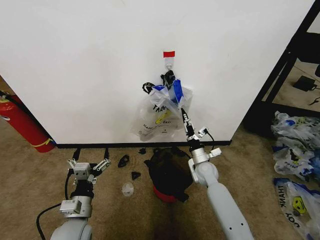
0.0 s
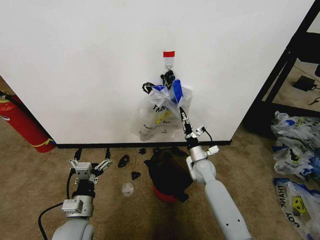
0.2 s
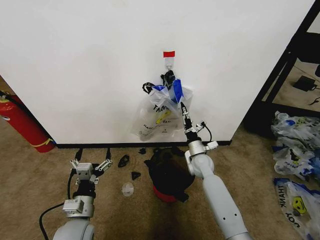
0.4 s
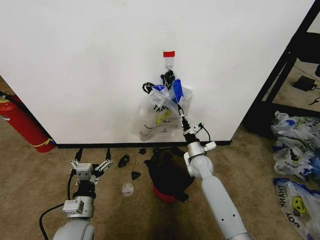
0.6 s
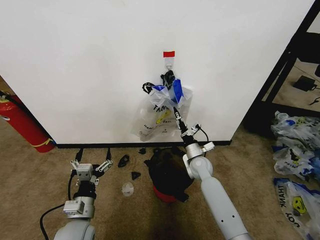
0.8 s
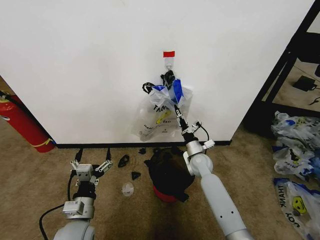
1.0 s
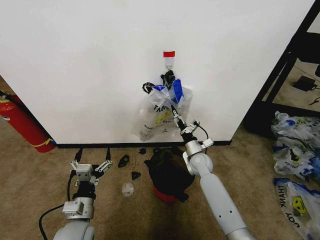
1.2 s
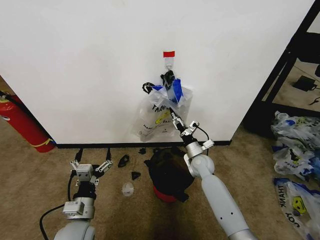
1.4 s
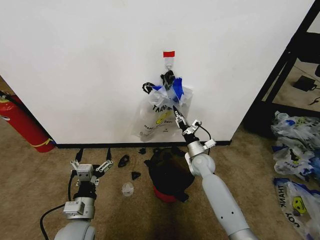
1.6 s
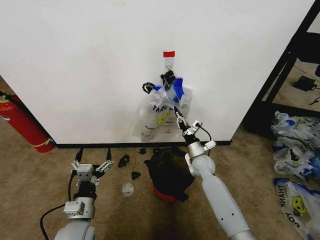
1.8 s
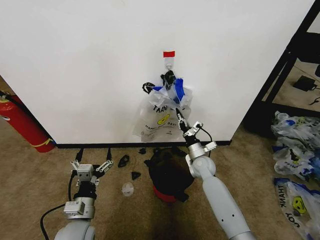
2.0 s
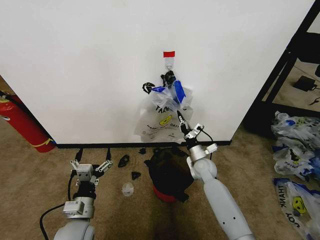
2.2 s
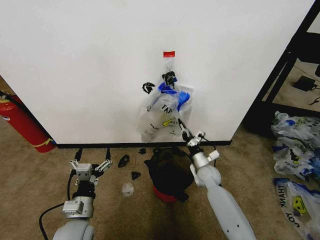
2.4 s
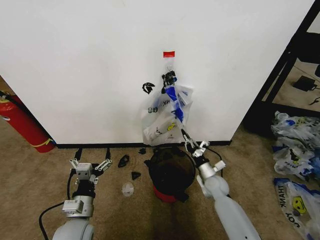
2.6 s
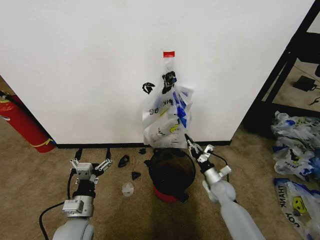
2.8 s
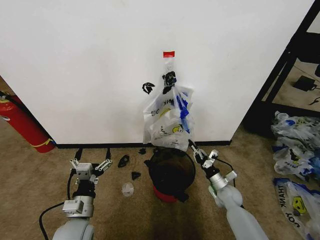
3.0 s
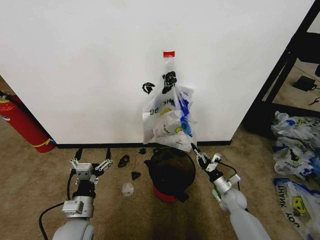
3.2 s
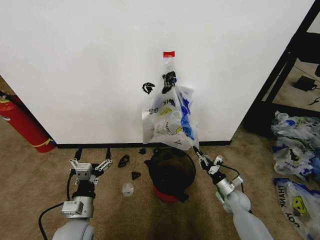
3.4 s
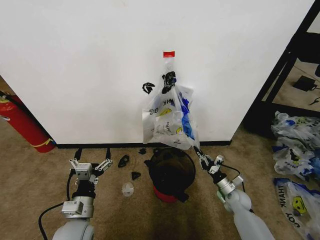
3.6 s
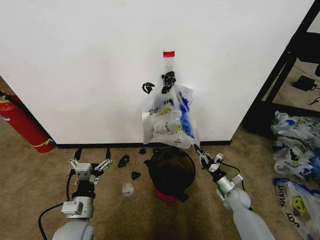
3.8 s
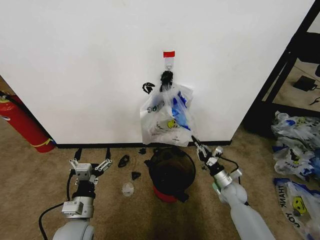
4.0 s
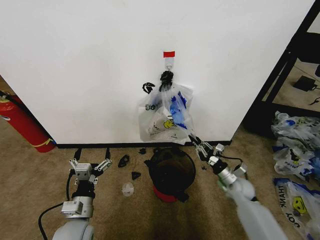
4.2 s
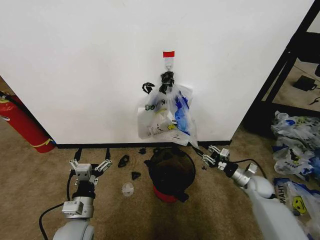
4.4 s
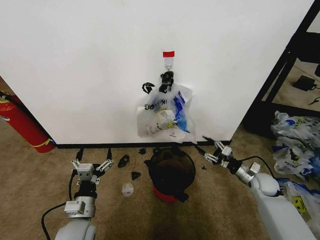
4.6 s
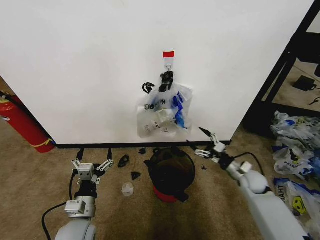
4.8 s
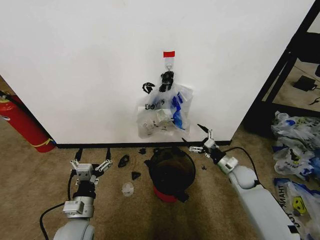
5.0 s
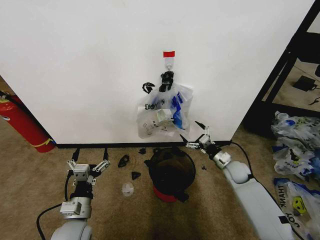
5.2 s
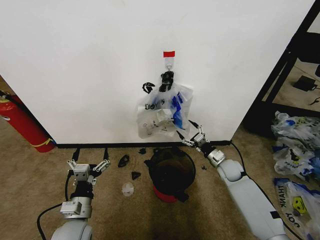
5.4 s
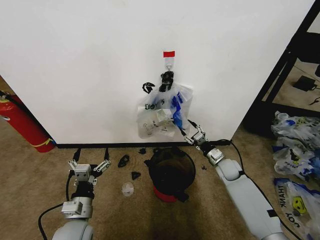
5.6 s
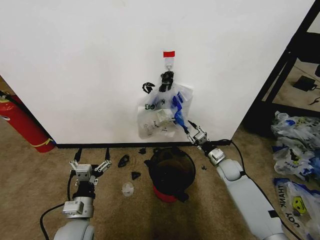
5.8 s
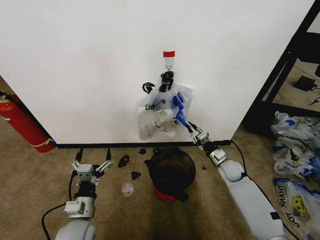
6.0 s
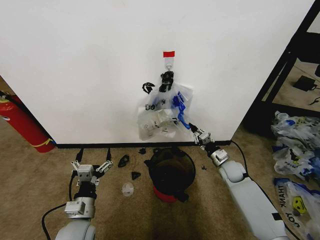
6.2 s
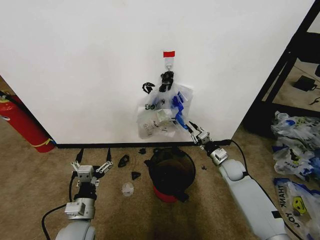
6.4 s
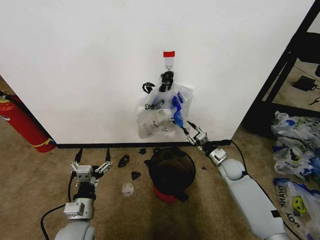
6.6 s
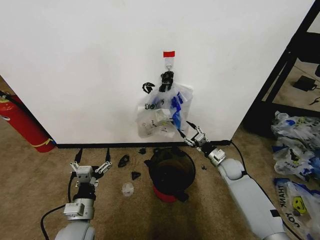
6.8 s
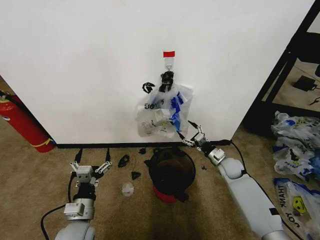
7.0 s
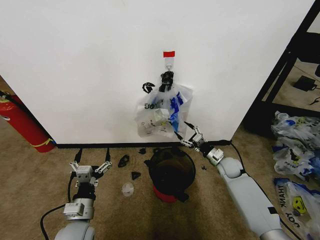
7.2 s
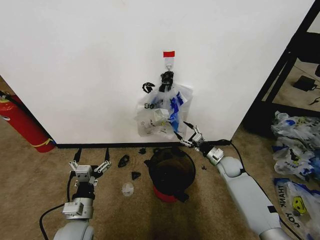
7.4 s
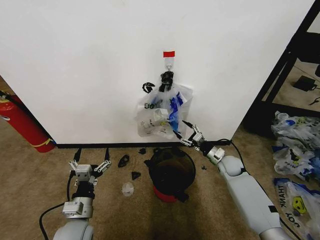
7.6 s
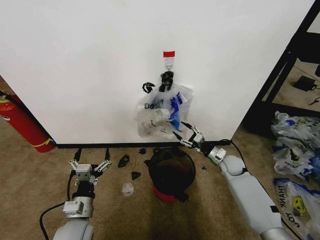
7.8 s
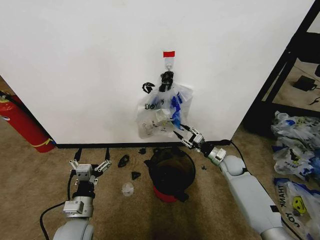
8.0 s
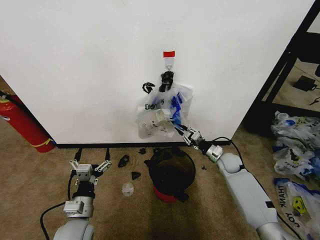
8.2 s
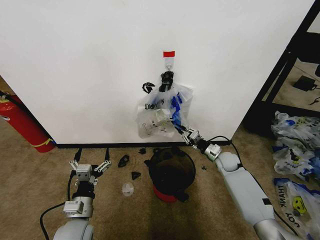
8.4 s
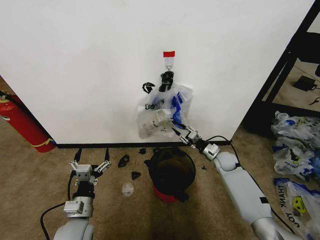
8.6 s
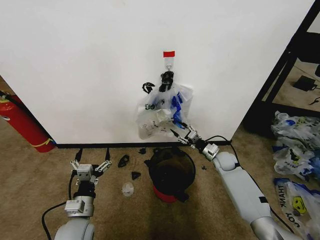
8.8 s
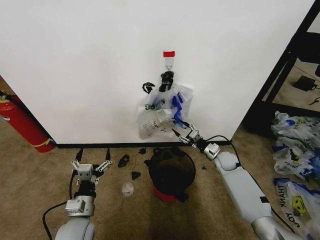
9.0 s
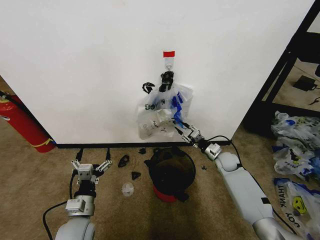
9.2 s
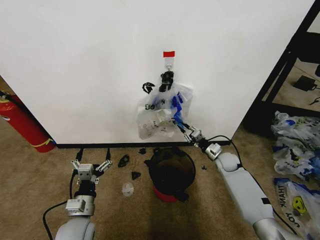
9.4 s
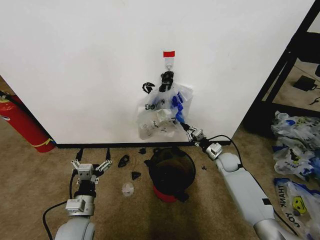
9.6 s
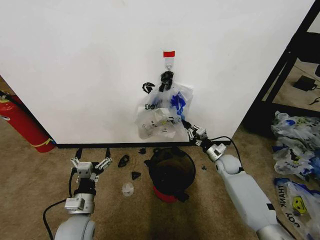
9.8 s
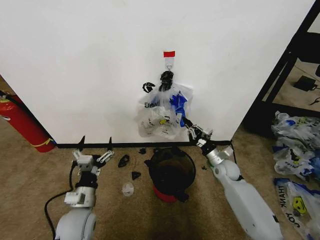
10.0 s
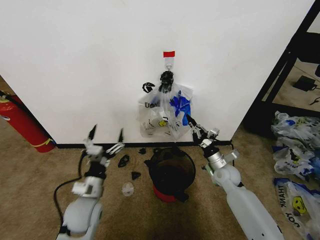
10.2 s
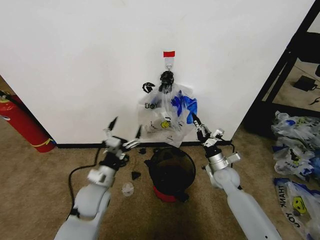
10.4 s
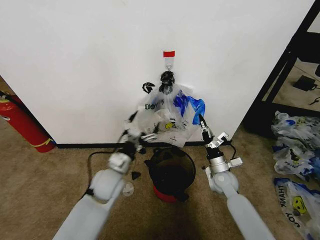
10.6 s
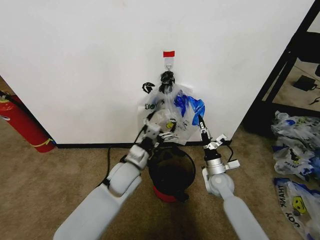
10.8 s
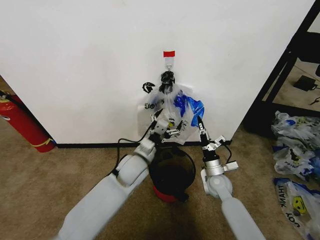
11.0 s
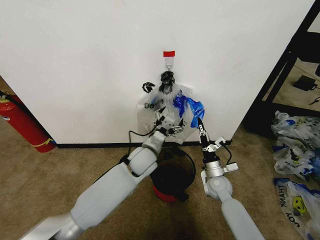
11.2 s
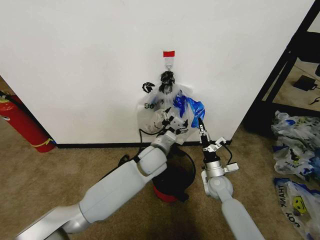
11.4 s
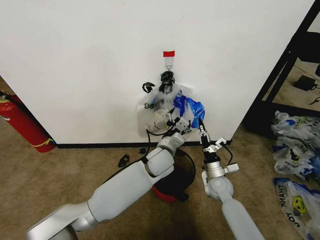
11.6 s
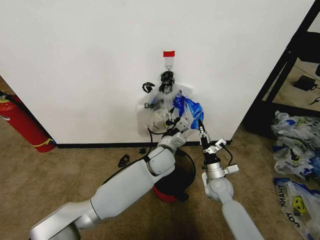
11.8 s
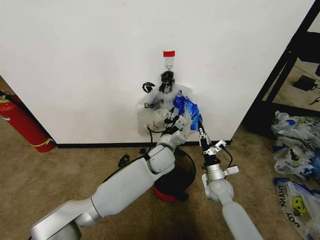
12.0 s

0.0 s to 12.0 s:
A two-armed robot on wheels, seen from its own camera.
Task of the whole recording: Pick up the garbage bag from the wall and place it over the trash bin.
0.0 to 1.6 s: The right gripper heads forward, covering about 5 cm, and closes up.
1.6 to 3.0 s: The right gripper shifts roughly 15 cm to the right, backward and downward, and closes up.
3.0 to 4.4 s: The right gripper is displaced to the right by approximately 10 cm.
4.4 to 6.0 s: The right gripper goes some 10 cm to the left and forward, and opens and closes again.
6.0 to 7.6 s: The right gripper opens up.
7.6 to 9.0 s: The right gripper closes, then reopens.
9.0 to 10.4 s: The right gripper travels backward by approximately 10 cm, and closes up; the left gripper goes some 10 cm forward.
10.4 to 12.0 s: The right gripper ends up about 5 cm from where it was, while the left gripper is displaced to the right and forward by roughly 25 cm, and closes.

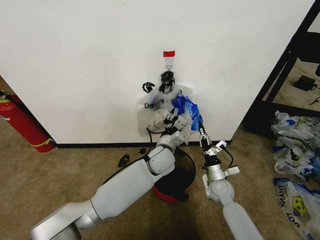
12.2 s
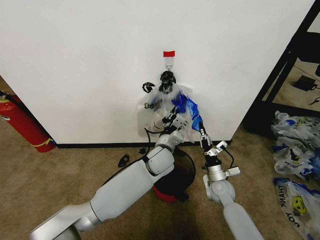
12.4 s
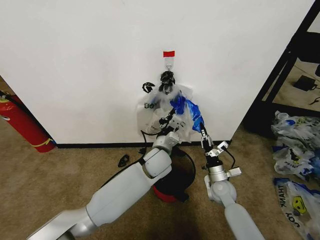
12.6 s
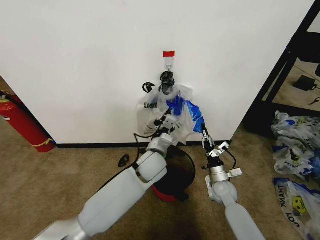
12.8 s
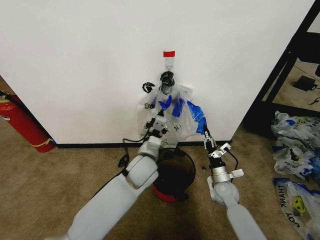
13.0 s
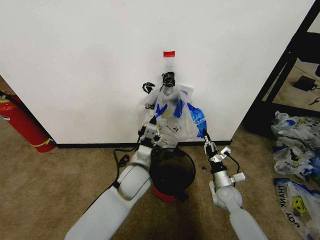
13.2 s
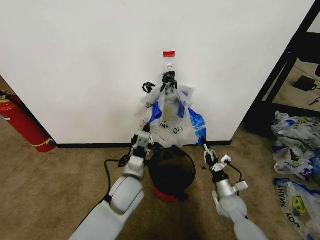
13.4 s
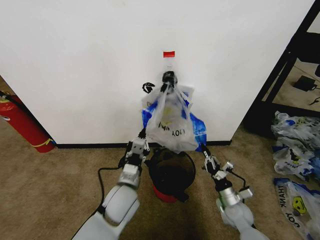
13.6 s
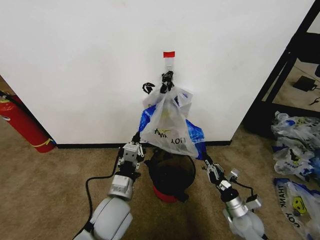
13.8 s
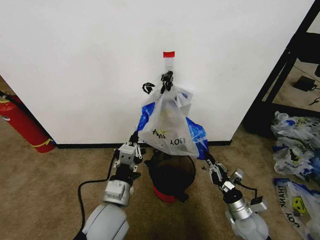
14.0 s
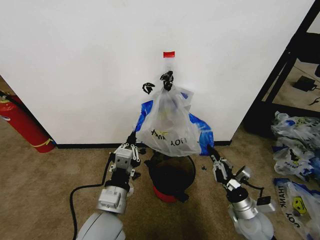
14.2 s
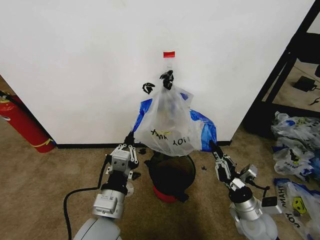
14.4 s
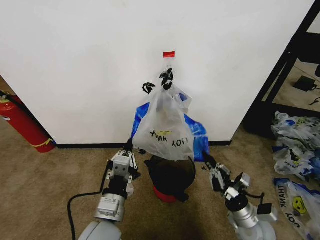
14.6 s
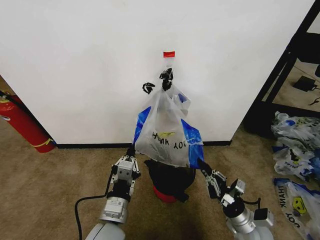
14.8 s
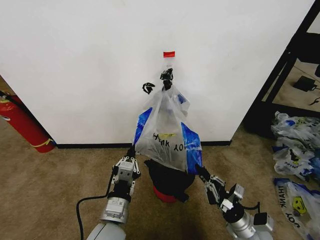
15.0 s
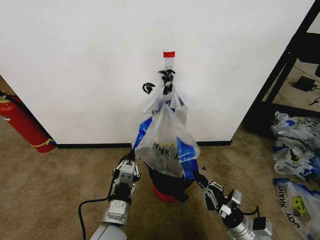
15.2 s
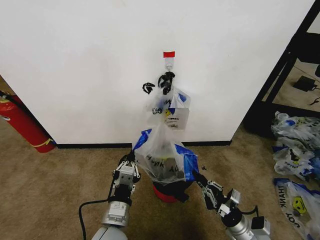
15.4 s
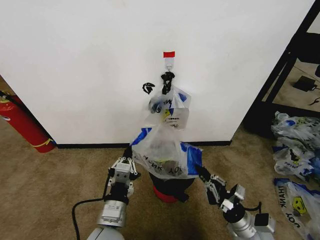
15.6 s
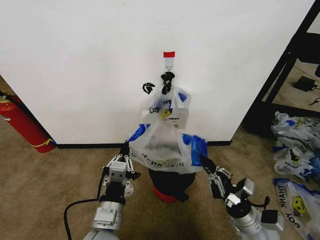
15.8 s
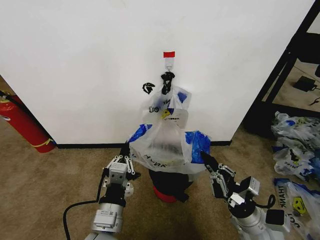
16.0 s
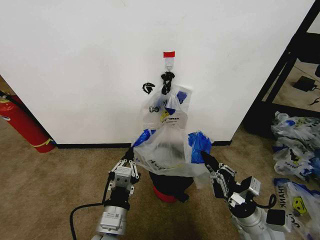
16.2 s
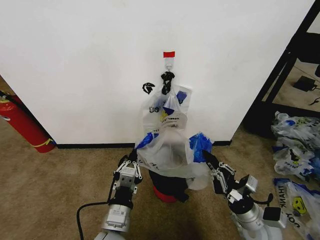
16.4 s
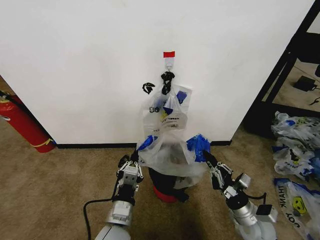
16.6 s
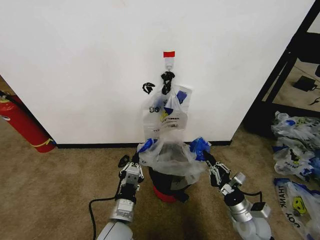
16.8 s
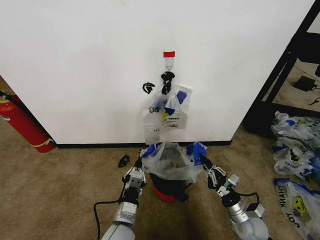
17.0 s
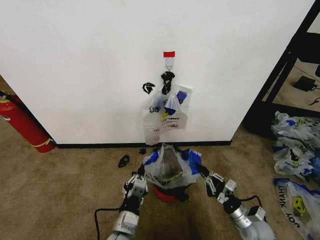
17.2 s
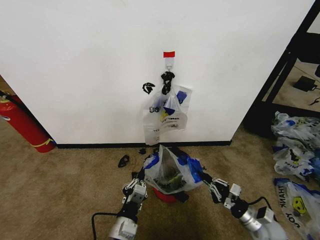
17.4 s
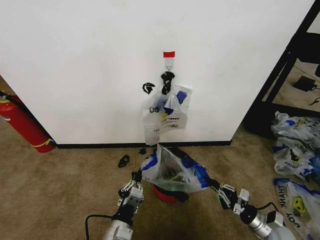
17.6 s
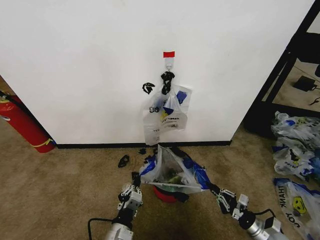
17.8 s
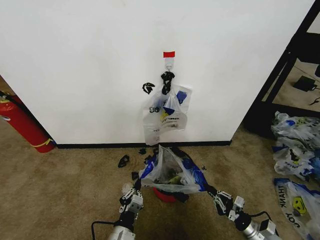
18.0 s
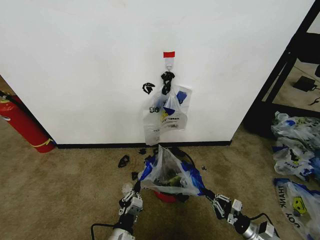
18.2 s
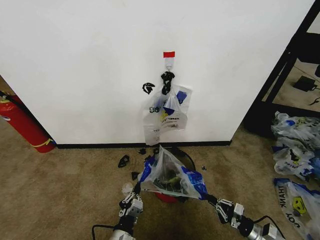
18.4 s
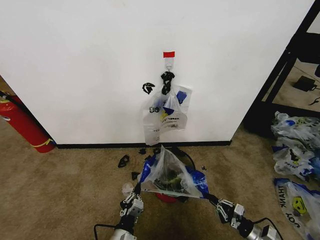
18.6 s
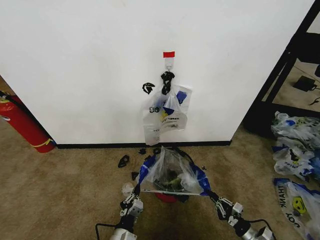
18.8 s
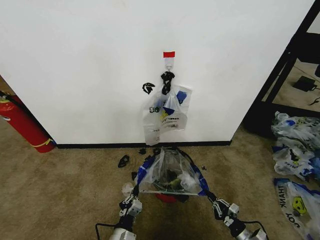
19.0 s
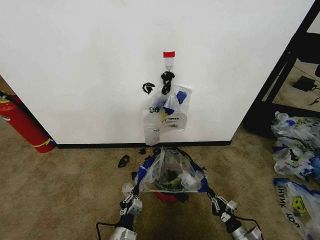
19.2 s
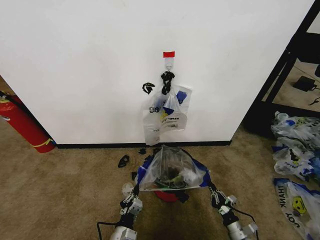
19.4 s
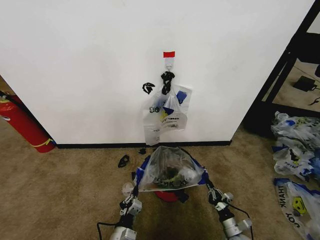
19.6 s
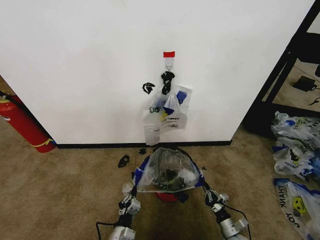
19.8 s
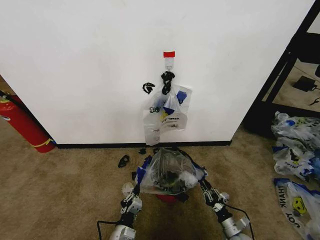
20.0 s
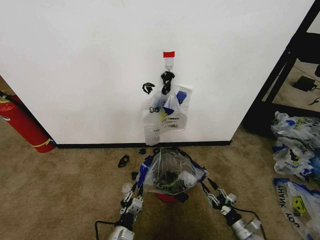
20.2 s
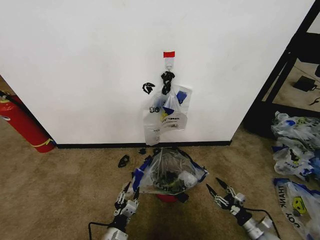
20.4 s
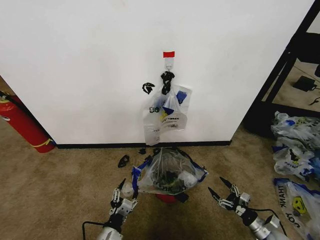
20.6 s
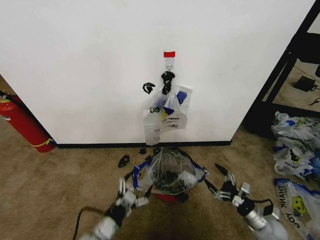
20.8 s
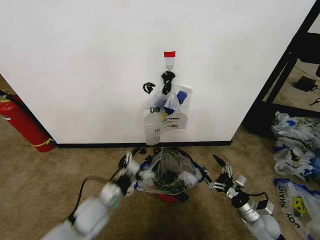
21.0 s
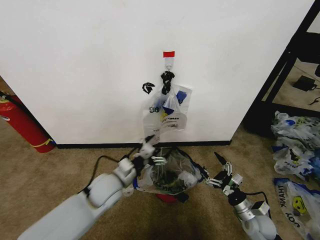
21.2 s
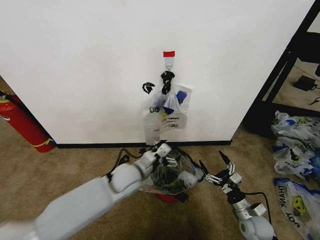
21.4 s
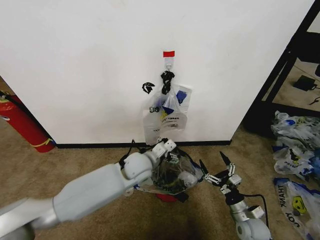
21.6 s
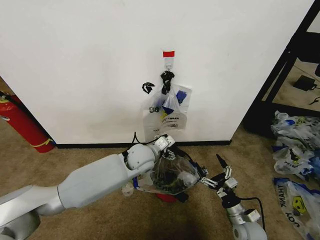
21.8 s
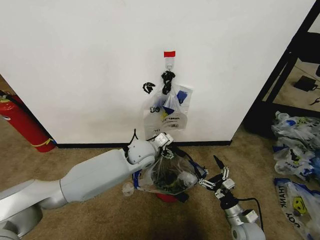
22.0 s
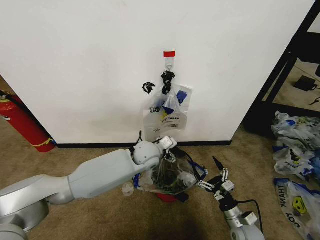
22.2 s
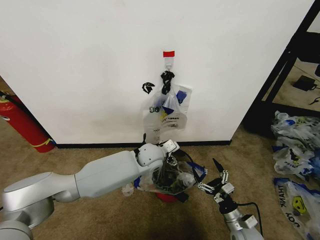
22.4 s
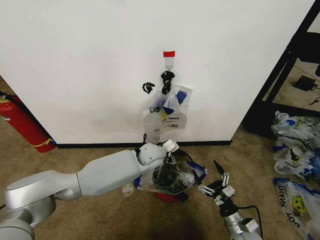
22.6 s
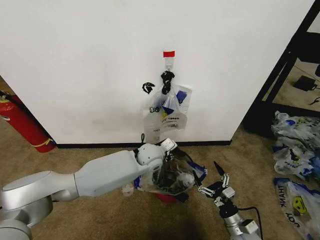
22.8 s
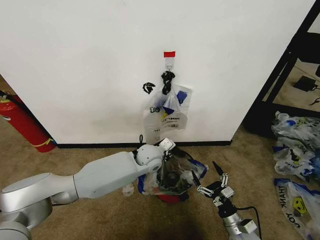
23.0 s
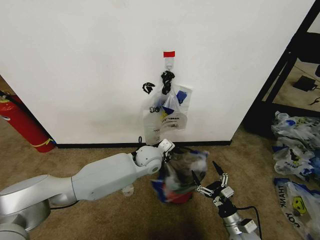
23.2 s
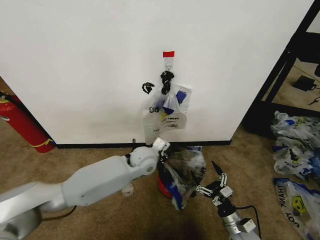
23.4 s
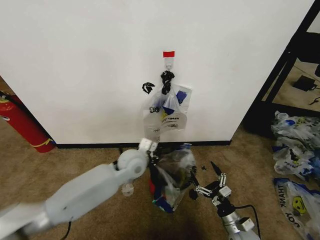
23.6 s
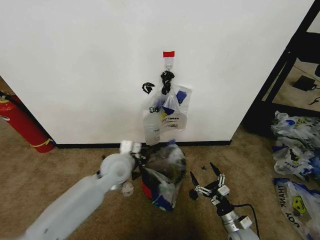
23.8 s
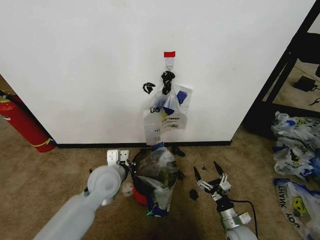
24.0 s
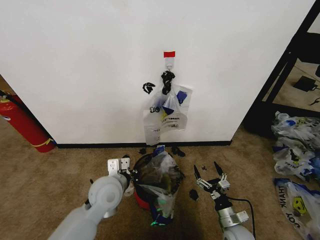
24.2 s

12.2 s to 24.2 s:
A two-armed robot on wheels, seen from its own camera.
Task of the whole recording: Pick up the garbage bag from the wall and place it over the trash bin.
12.2 to 13.8 s: The right gripper shifts approximately 10 cm backward and to the right. Meanwhile the left gripper moves backward and to the left, about 20 cm, and closes.
13.8 to 15.2 s: Both grippers travel together backward, some 5 cm.
16.6 to 18.2 s: The left gripper travels downward by approximately 10 cm; the right gripper goes approximately 15 cm downward and to the right.
18.2 to 19.8 s: The left gripper moves downward, approximately 5 cm, while the right gripper is displaced downward and to the left by roughly 10 cm.
19.8 to 21.2 s: The right gripper travels upward by some 15 cm, and opens, while the left gripper travels upward and forward by approximately 25 cm, and opens up.
21.2 to 22.6 s: The left gripper moves to the right and forward, about 20 cm. The right gripper moves roughly 5 cm.
22.6 to 24.2 s: The left gripper travels backward and to the left by roughly 20 cm, and closes up.
